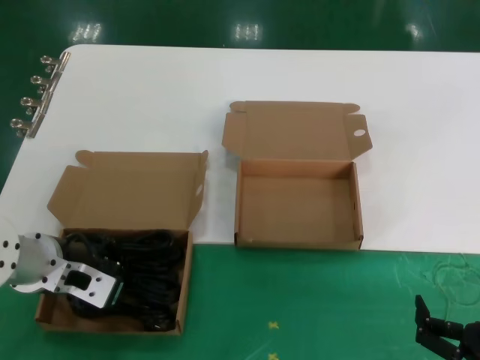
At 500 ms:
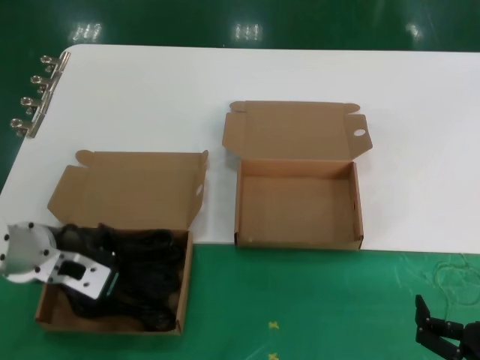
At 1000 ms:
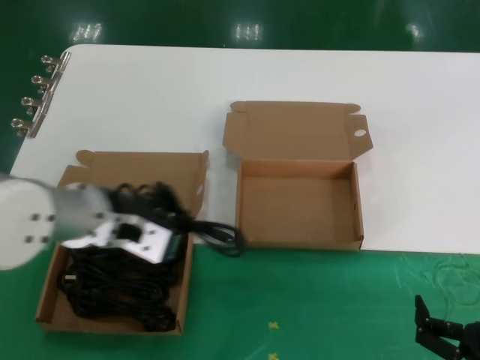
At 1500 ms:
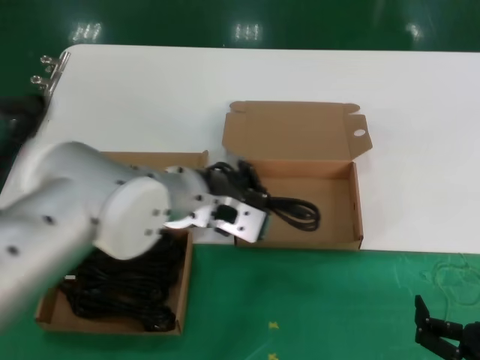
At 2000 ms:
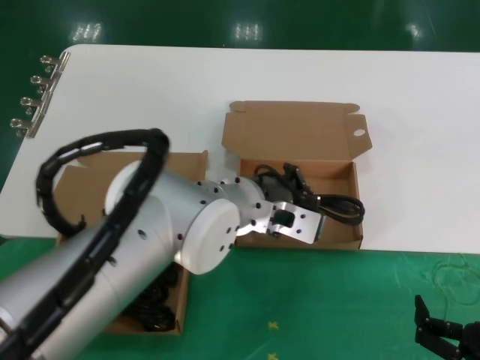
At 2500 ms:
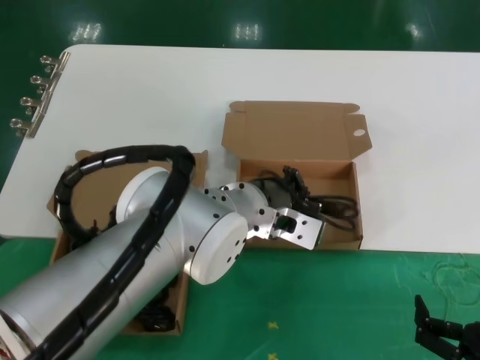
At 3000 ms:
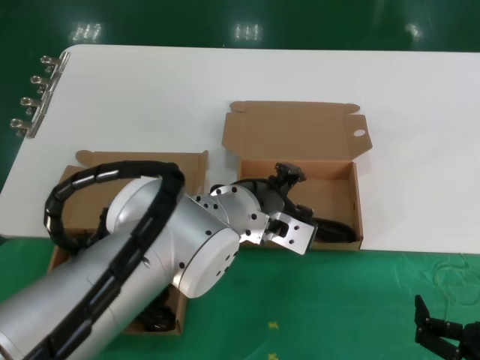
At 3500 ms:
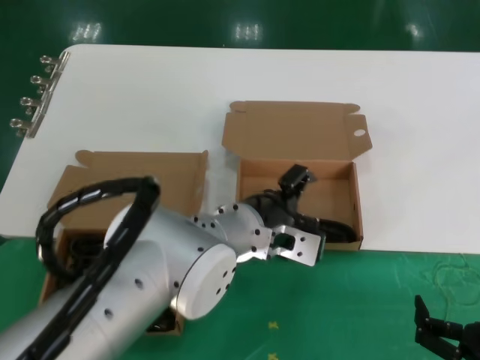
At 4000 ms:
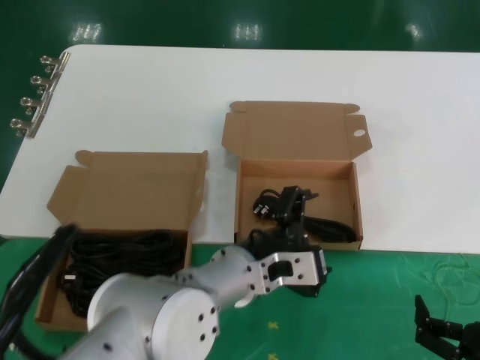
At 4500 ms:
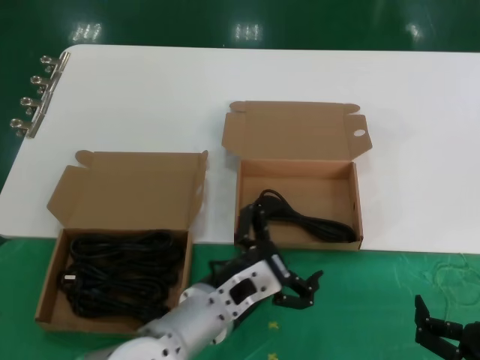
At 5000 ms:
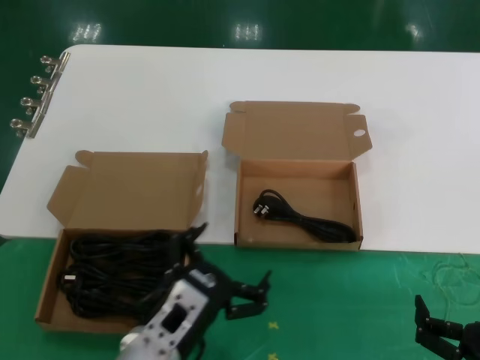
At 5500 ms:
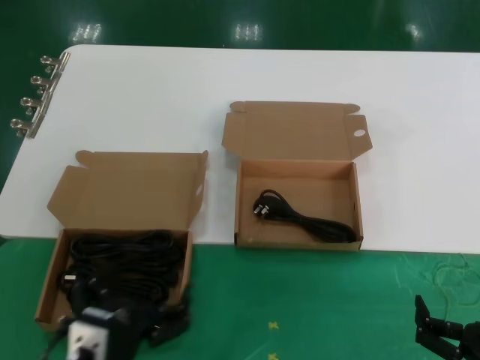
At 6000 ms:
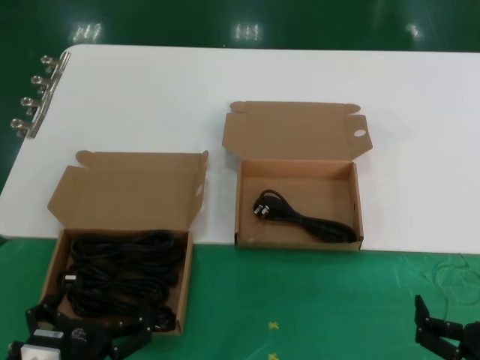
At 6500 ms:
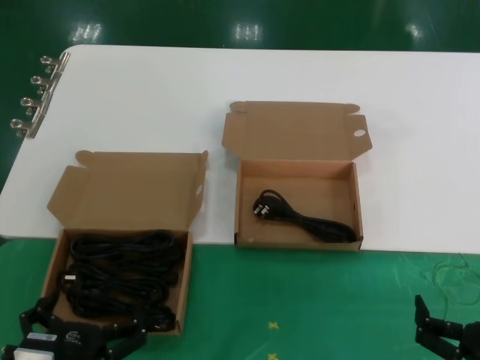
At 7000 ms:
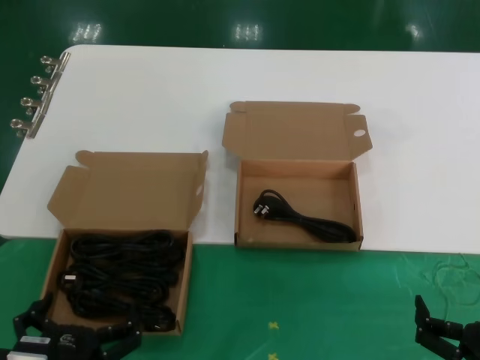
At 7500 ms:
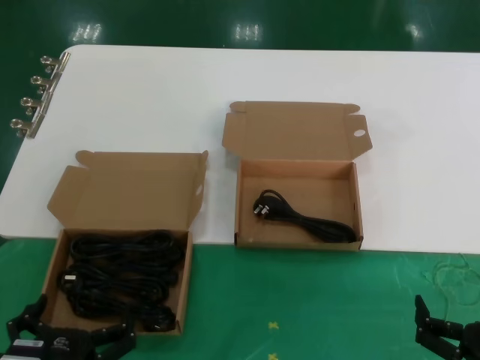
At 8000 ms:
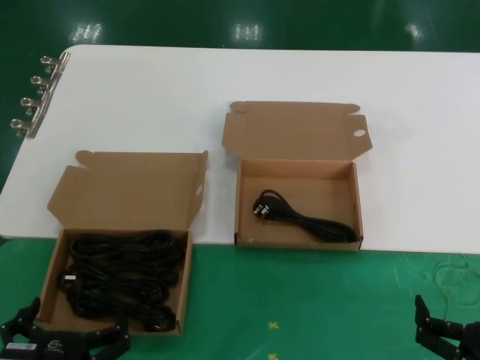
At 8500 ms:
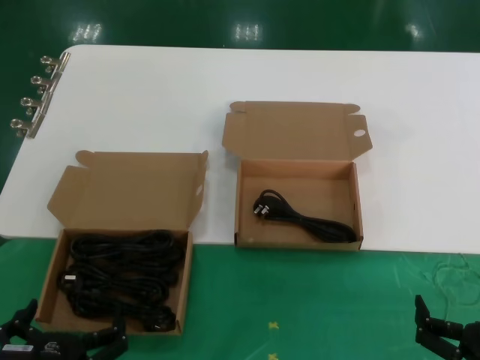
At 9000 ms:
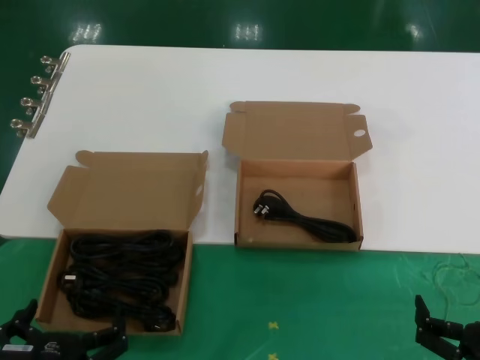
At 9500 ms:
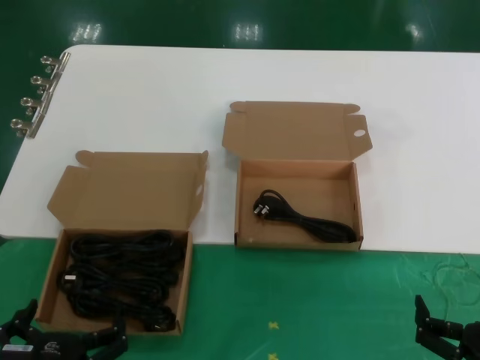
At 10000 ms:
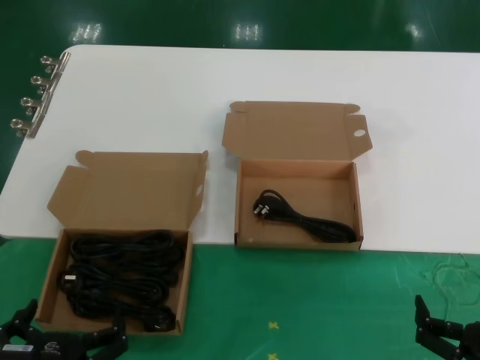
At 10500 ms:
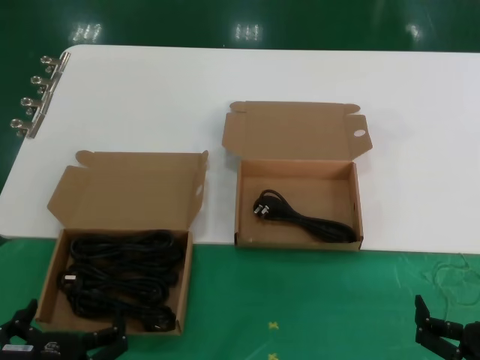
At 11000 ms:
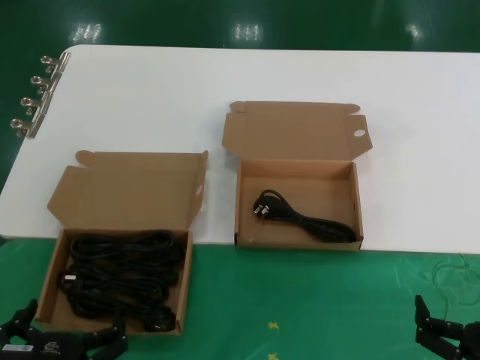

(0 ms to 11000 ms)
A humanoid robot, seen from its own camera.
Task of the whole recording: take the parts from the box containing them and put them into an empty box.
Step, 1000 ms - 3000 ms: Place the data cable in the another box.
0 ms - 2000 ms: The left hand moves to the right, roughly 25 cm.
3500 ms - 5500 ms: The left hand shifts some 25 cm downward, backward and to the left.
5500 ms - 7500 ms: The left hand moves about 5 cm.
7500 ms - 11000 ms: Neither hand changes place.
